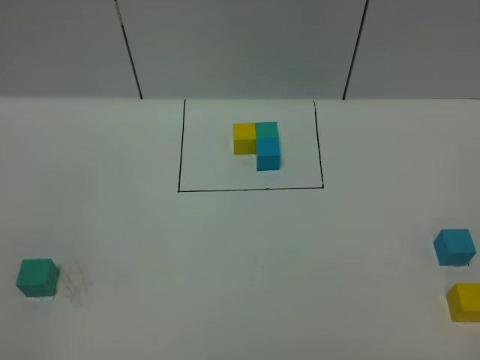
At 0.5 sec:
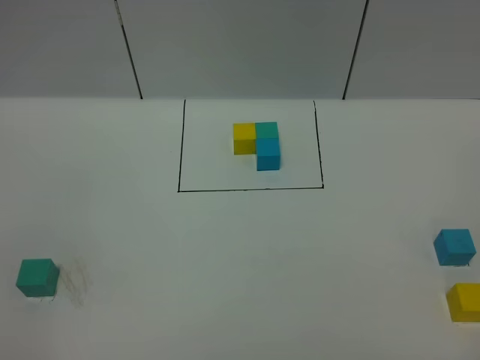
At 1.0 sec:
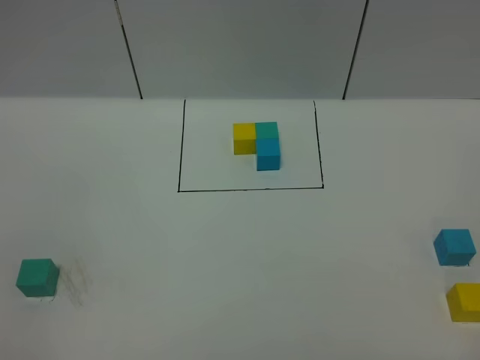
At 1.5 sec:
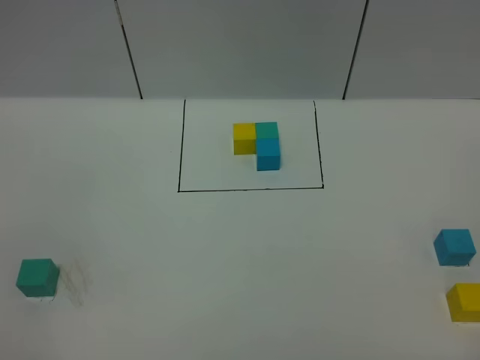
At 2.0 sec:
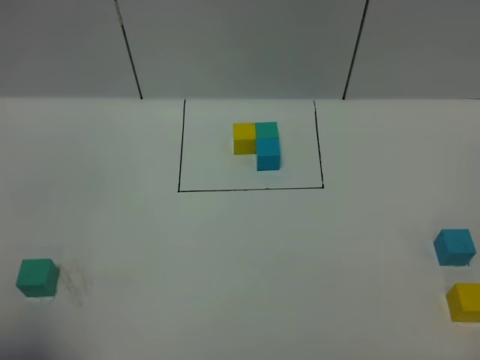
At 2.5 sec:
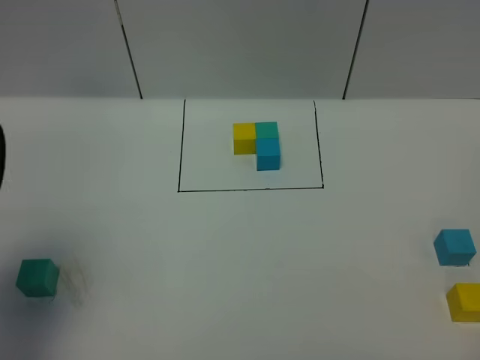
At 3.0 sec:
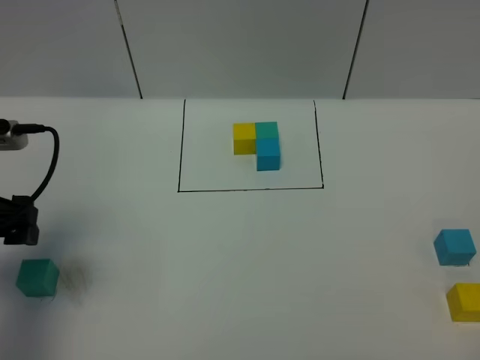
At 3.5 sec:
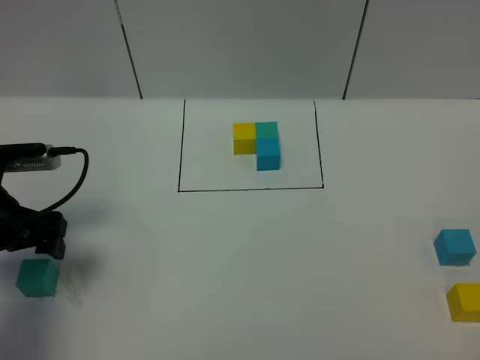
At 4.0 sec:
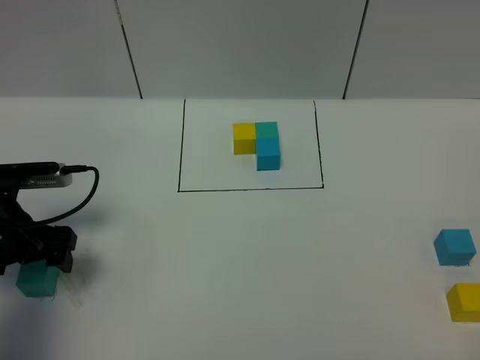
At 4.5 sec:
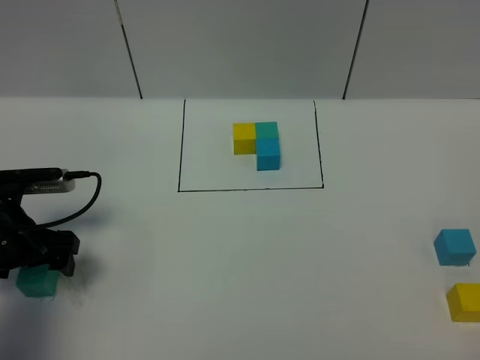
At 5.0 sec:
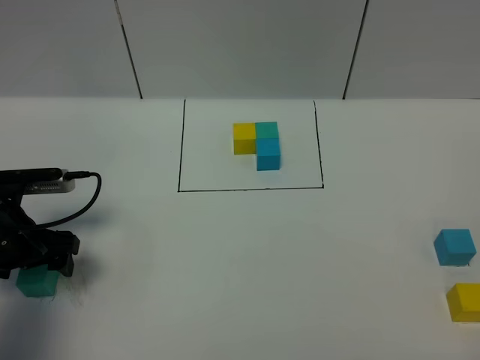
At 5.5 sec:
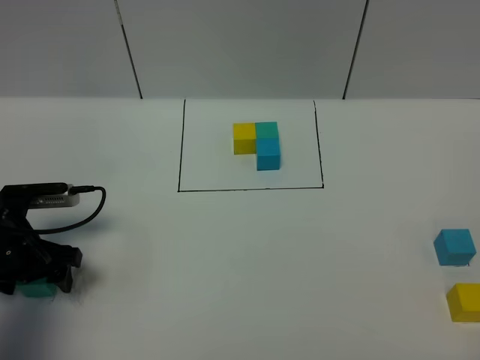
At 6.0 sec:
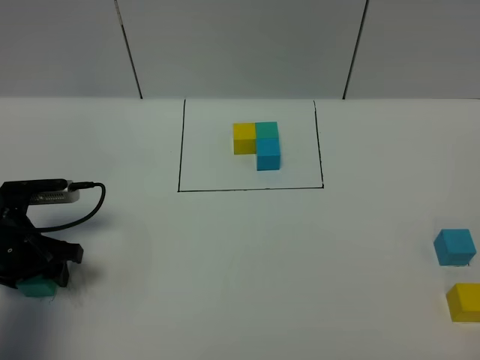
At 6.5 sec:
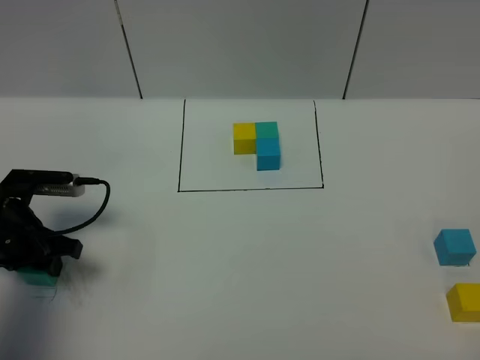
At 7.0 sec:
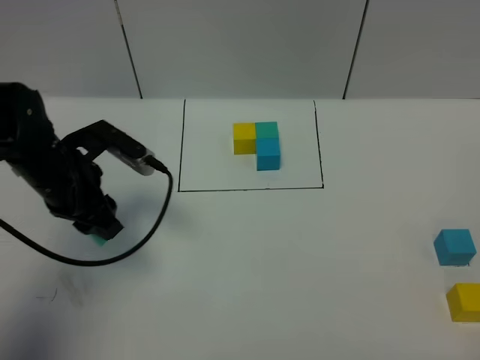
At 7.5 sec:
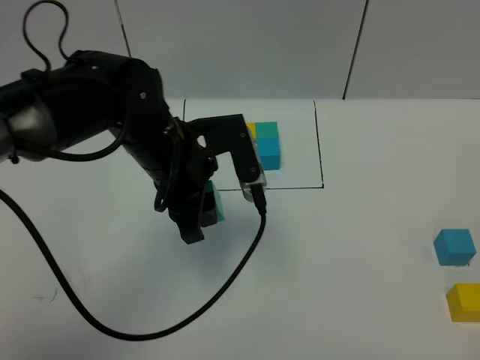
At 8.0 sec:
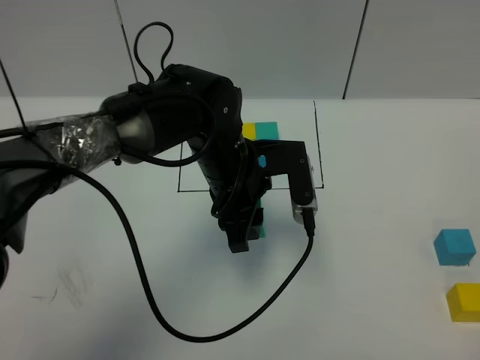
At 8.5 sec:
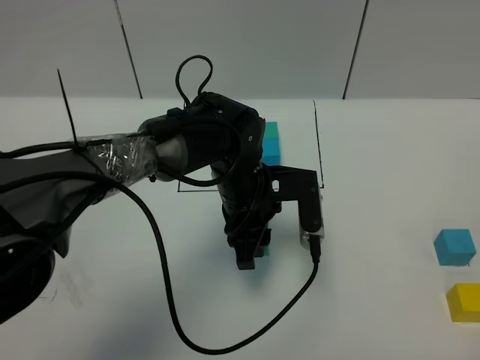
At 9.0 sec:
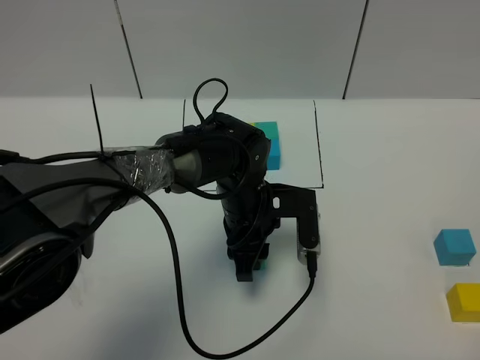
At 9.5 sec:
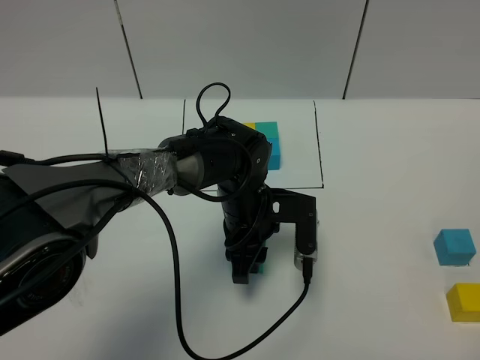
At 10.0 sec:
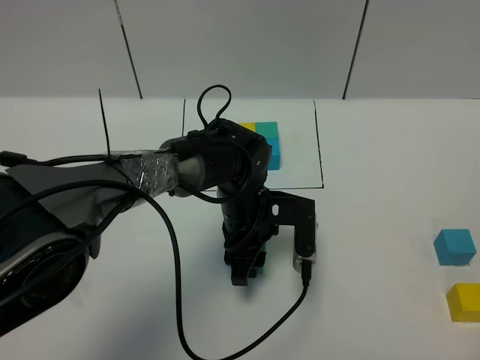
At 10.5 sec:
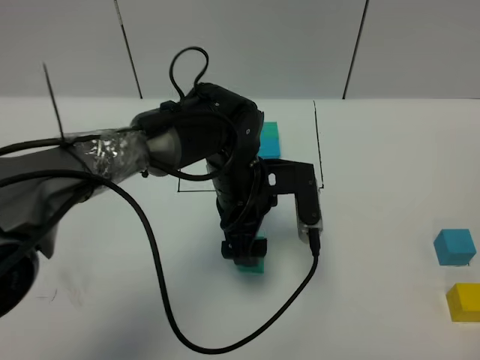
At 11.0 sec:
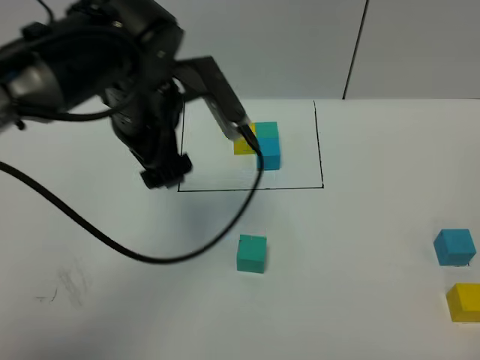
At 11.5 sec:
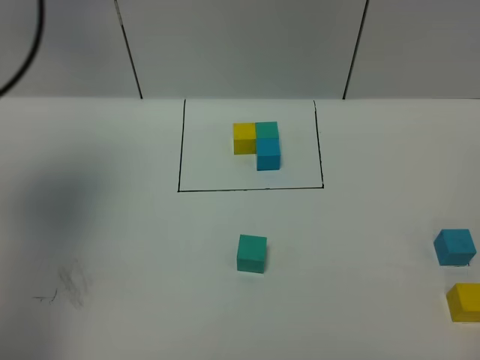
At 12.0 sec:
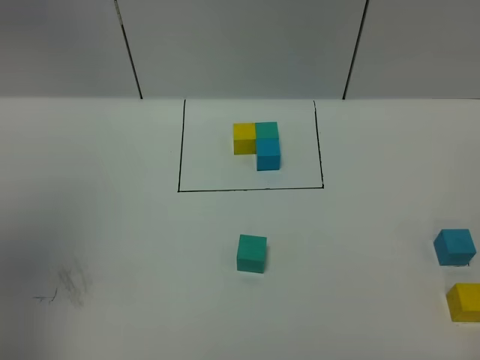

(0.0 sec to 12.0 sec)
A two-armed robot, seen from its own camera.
Task of the whole recording: According to the building block template in front, assemble the scattered blocks together.
Step, 2.5 sec - 10.5 sec: Put the green cube in the center of the table.
0.0 sec - 2.0 sec: The left gripper heads forward, covering some 10 cm, and opens its fingers.
2.0 sec - 4.0 sec: The left gripper travels forward and downward by roughly 30 cm.
4.0 sec - 6.0 sec: The left gripper closes its fingers.
6.0 sec - 8.0 sec: The left gripper travels to the right by approximately 30 cm.
8.0 sec - 10.0 sec: The left gripper heads downward, covering about 10 cm.
10.0 sec - 12.0 sec: The left gripper is displaced upward, to the left and backward by roughly 60 cm, and opens.

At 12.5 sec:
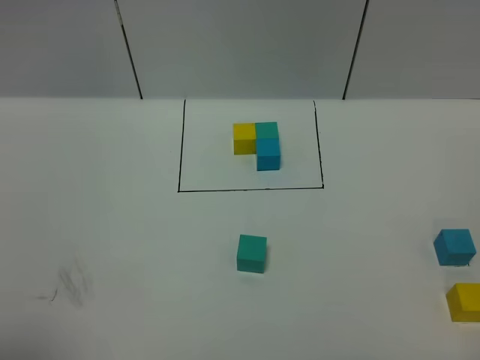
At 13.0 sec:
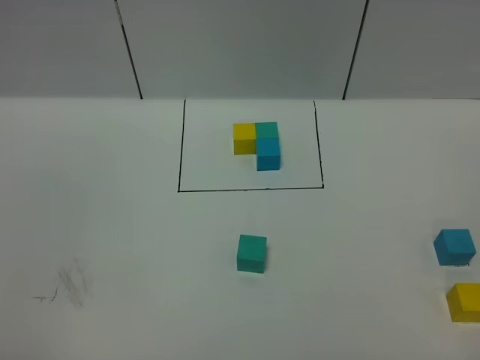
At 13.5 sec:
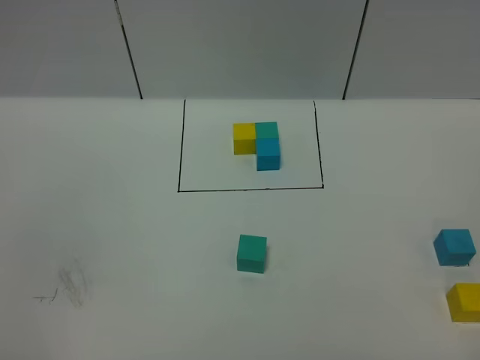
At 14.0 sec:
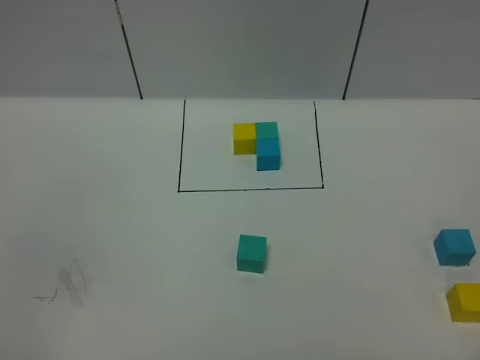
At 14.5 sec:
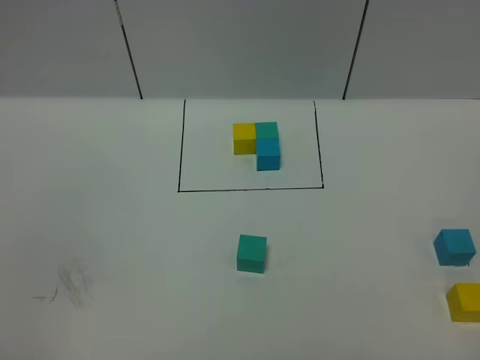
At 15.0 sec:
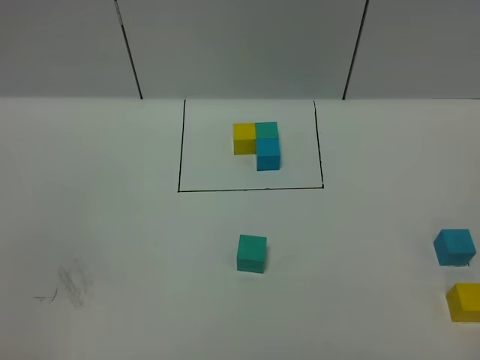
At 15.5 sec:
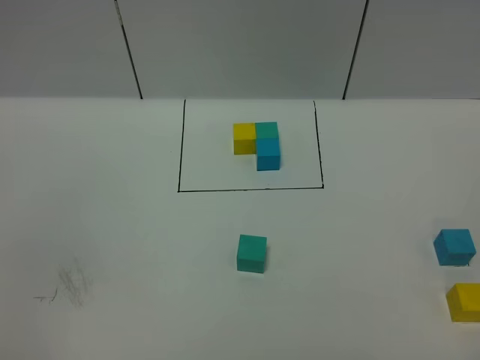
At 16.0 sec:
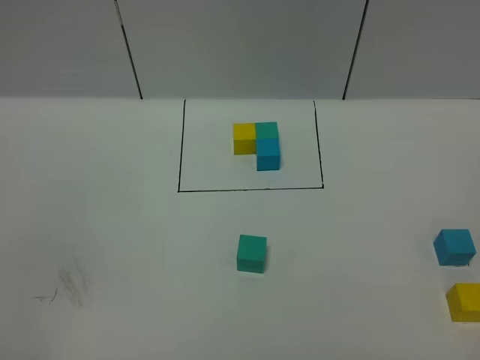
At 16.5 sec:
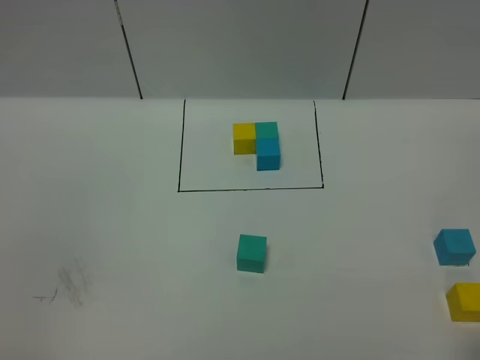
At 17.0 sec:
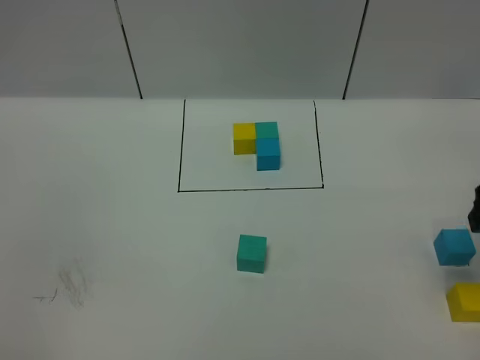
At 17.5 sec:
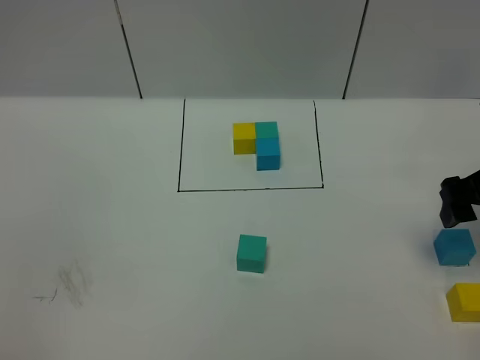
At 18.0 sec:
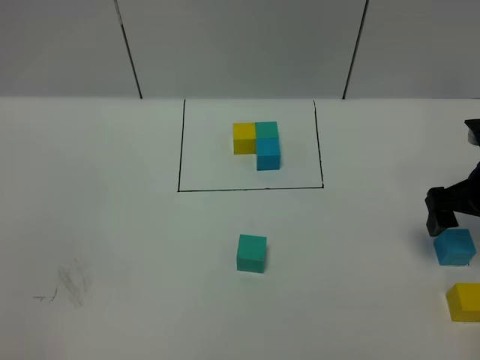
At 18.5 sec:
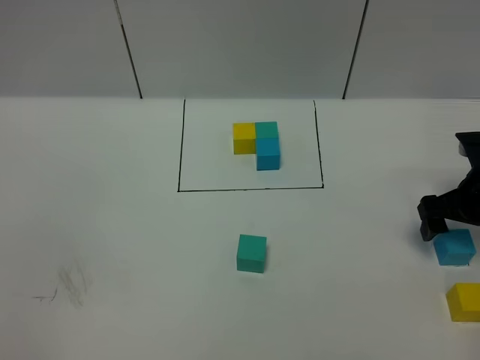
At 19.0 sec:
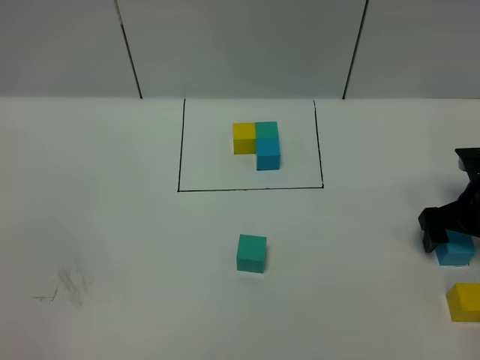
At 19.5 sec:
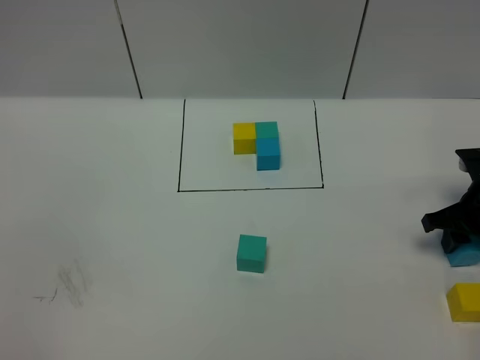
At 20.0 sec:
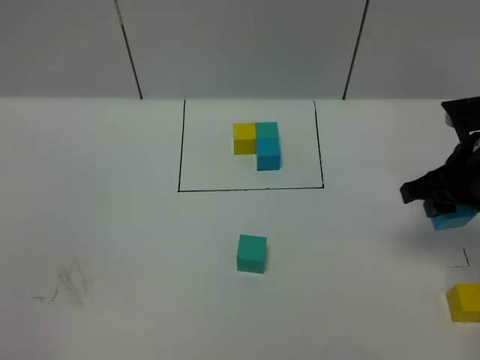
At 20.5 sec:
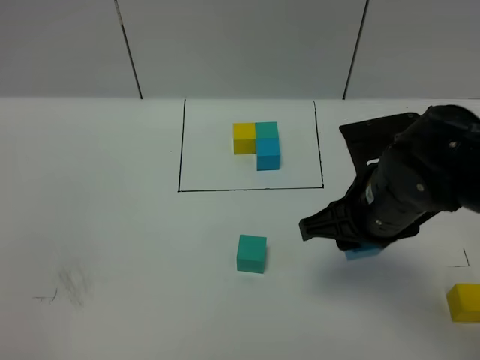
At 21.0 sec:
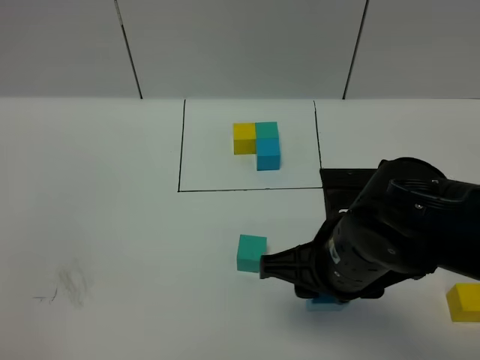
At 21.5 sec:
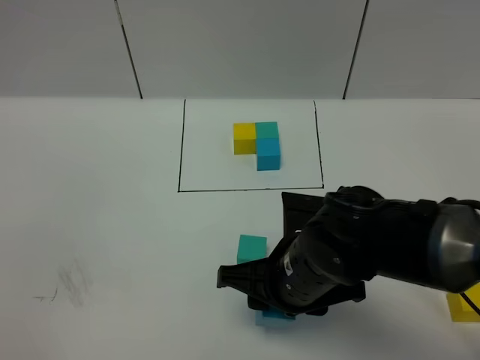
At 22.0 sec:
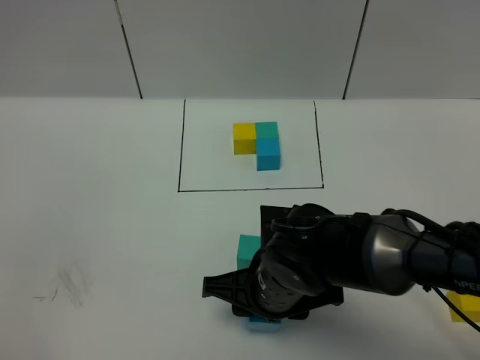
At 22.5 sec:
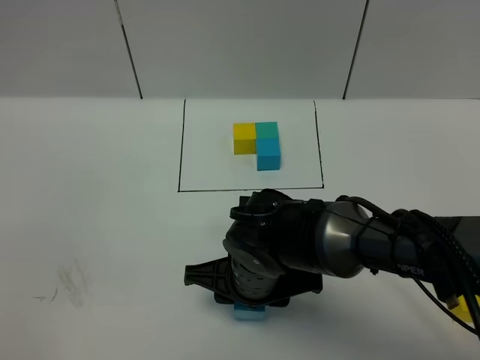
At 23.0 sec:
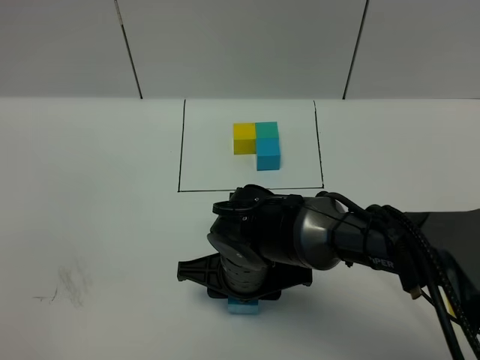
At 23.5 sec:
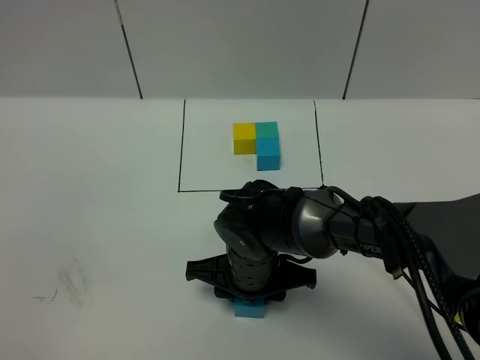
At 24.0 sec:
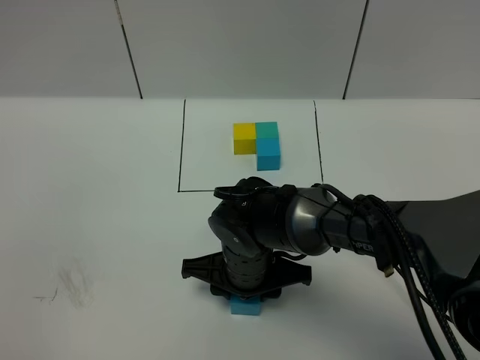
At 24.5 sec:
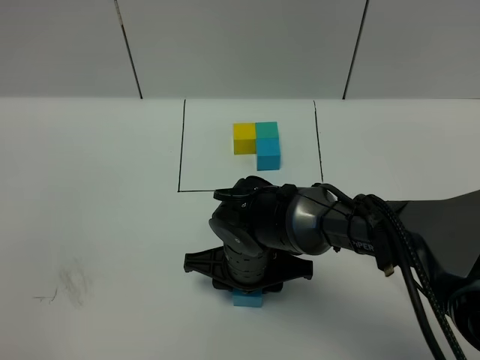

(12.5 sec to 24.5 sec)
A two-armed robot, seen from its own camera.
Task of the whole recording: According to the building block template in front, assemble the scattered blocks together.
16.5 sec - 18.5 sec: The right gripper travels forward and downward by roughly 30 cm.
18.5 sec - 20.5 sec: The right gripper travels to the left, backward and upward by roughly 20 cm, and closes.
20.5 sec - 22.5 sec: The right gripper heads to the left and downward, covering roughly 15 cm.
22.5 sec - 24.5 sec: The grippers move only a little.

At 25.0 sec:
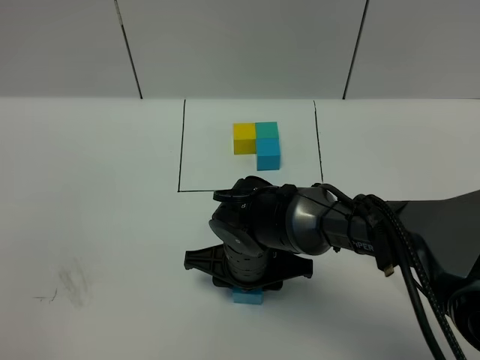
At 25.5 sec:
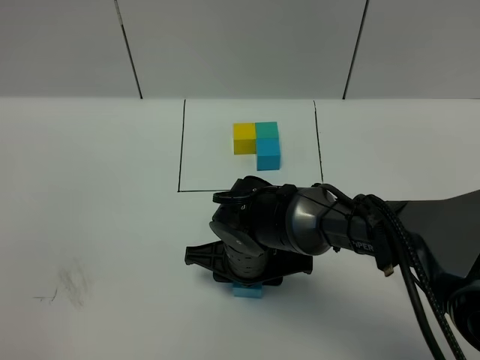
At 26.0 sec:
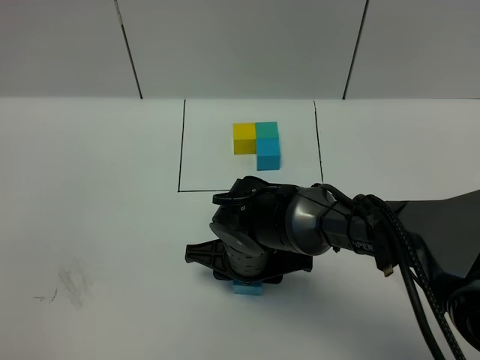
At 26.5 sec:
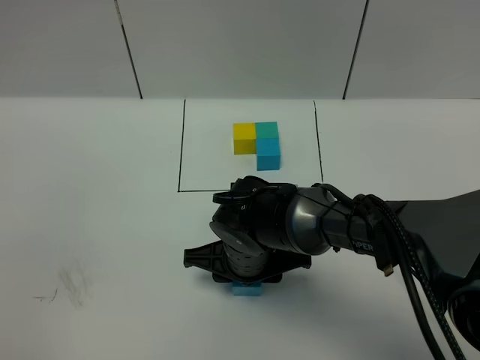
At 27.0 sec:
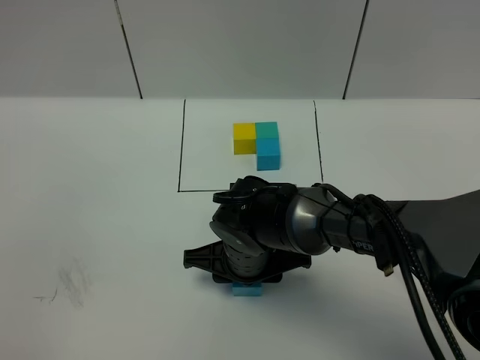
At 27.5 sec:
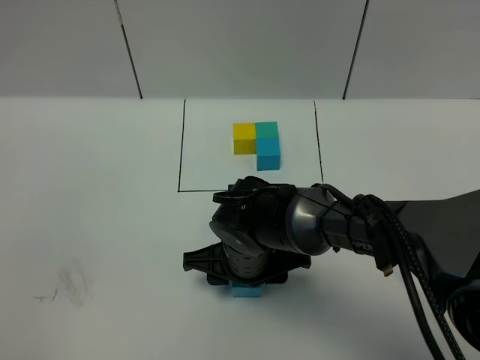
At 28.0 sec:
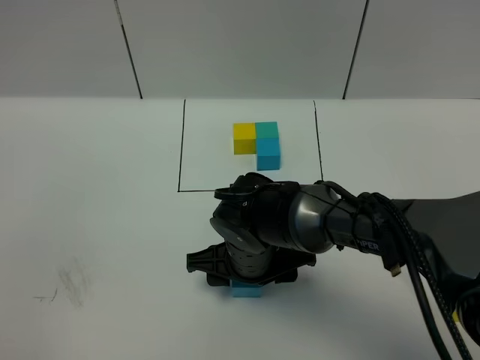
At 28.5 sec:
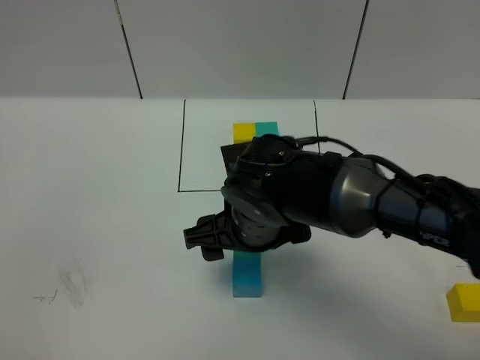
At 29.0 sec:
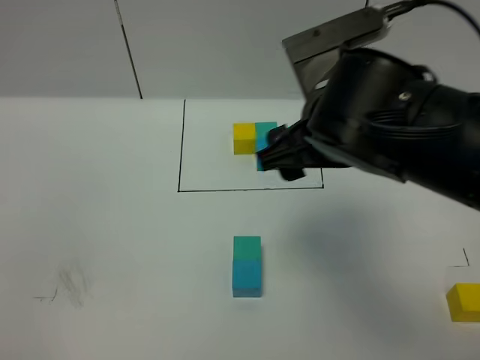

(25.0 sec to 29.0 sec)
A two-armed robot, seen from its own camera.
Task of the whole recording: According to the building block template in front, assemble the scattered blocks together.
Step, 25.0 sec - 28.0 sec: Put the blue cube in the front of the green cube.
25.0 sec - 27.0 sec: The grippers move only a little.
27.0 sec - 29.0 sec: The right gripper goes about 25 cm upward and to the right, and opens up.
